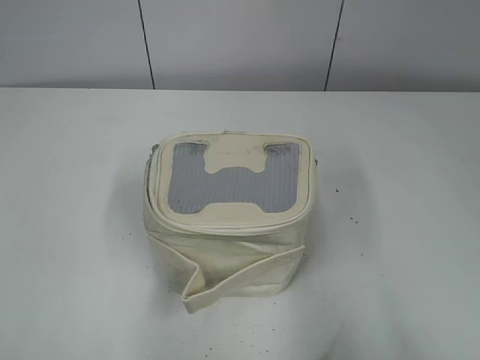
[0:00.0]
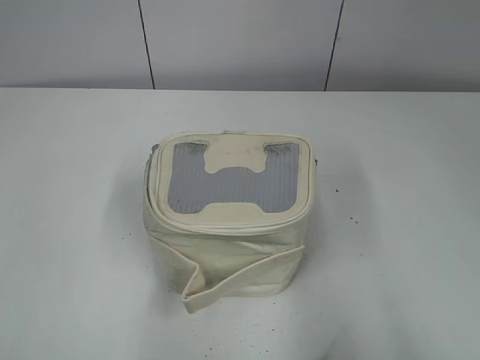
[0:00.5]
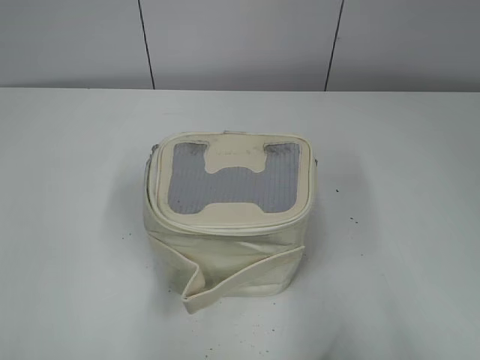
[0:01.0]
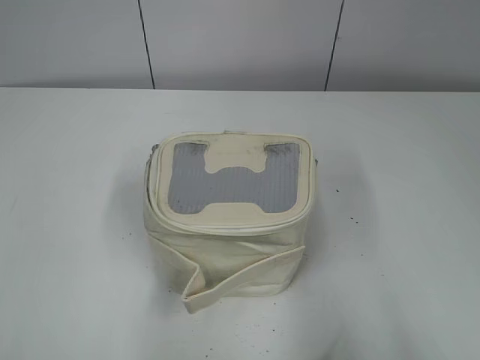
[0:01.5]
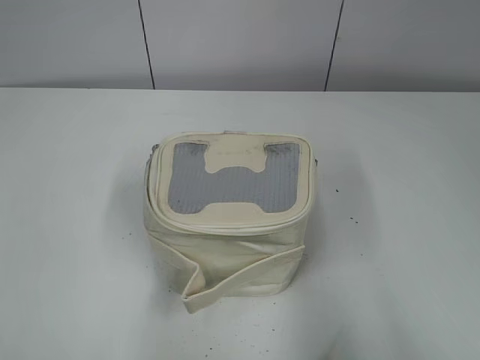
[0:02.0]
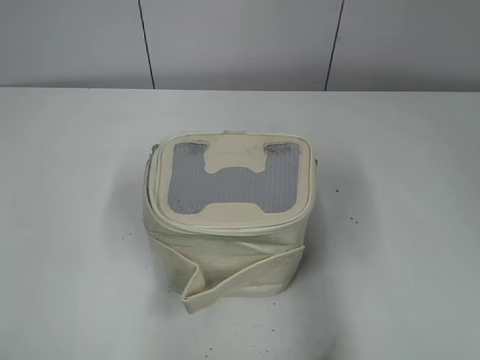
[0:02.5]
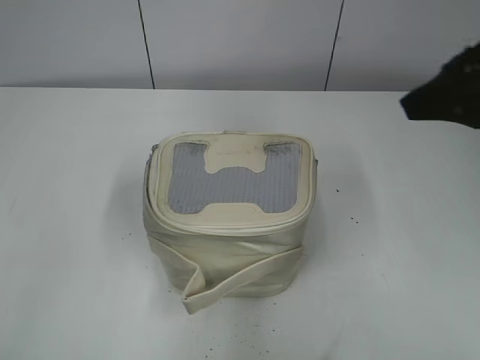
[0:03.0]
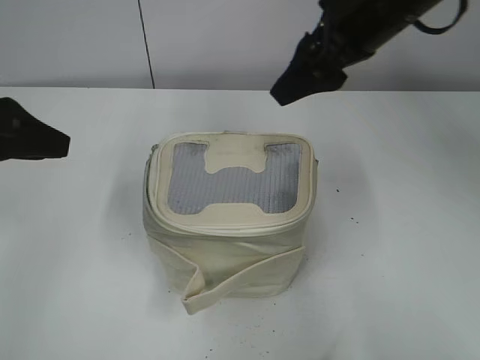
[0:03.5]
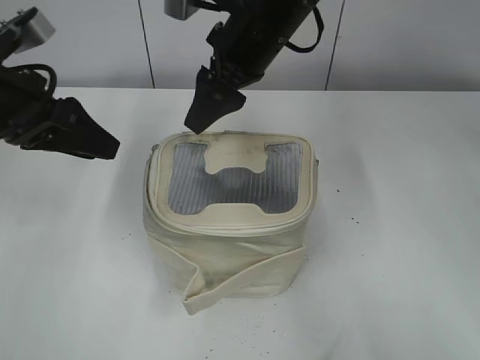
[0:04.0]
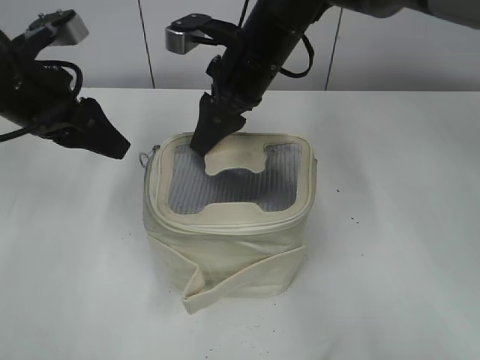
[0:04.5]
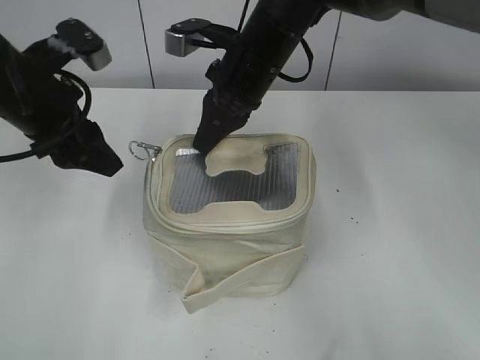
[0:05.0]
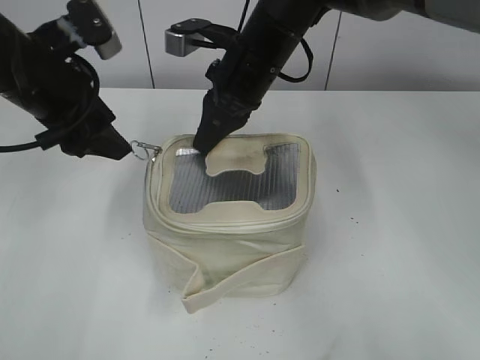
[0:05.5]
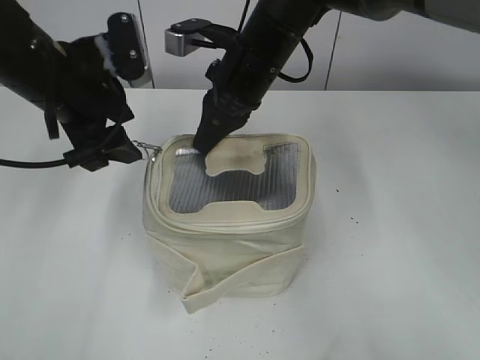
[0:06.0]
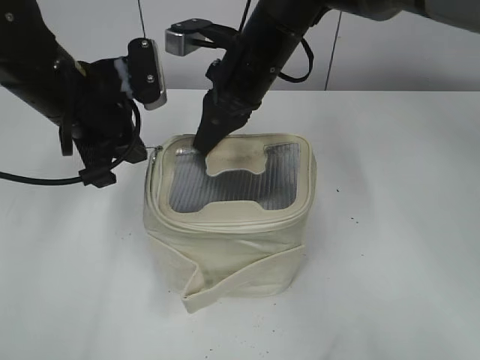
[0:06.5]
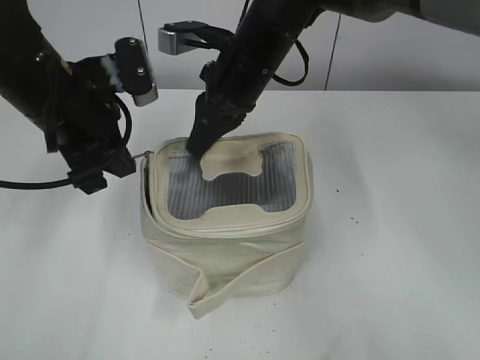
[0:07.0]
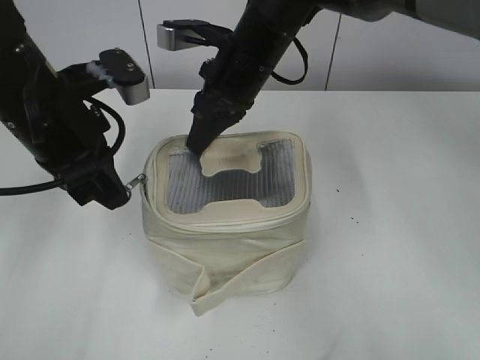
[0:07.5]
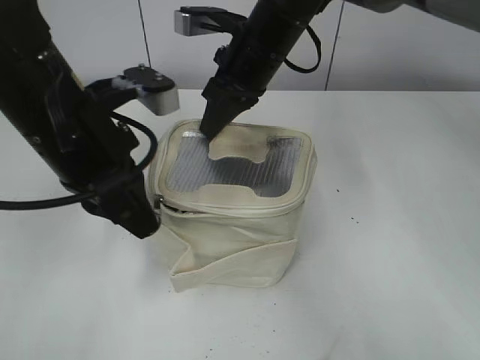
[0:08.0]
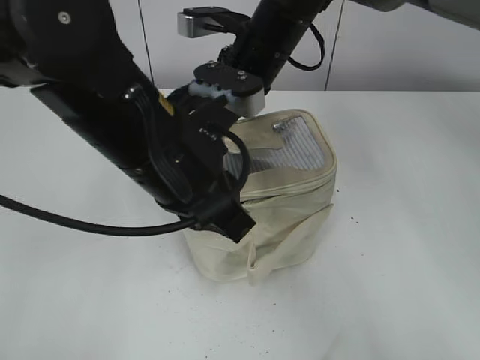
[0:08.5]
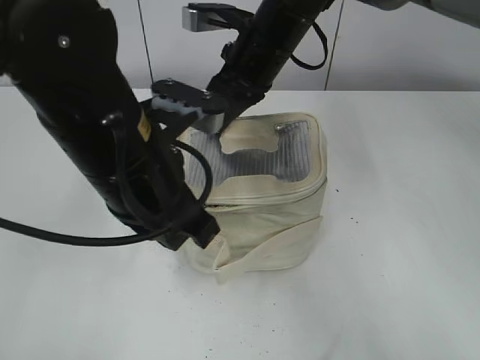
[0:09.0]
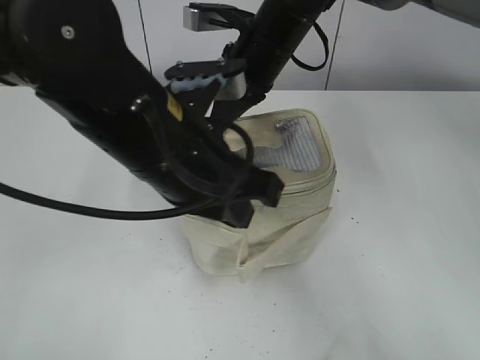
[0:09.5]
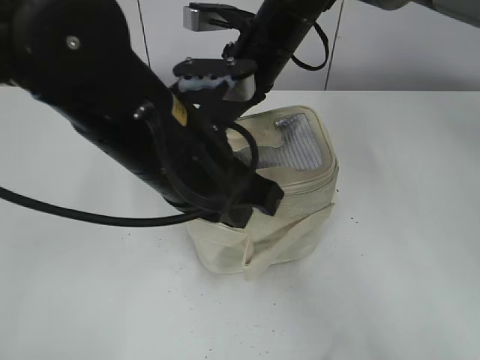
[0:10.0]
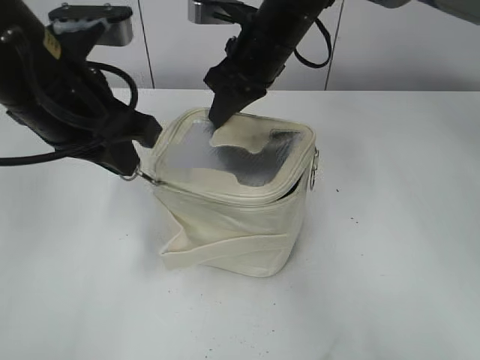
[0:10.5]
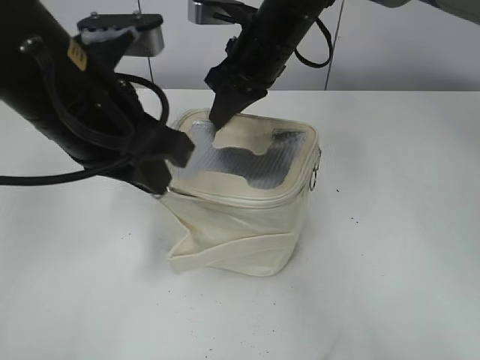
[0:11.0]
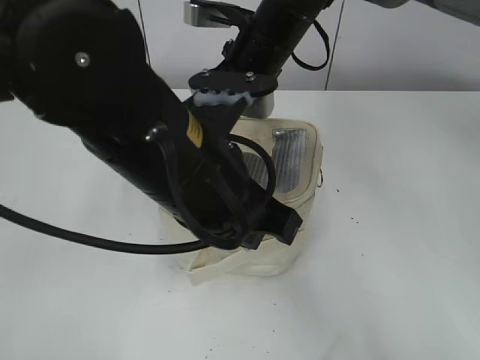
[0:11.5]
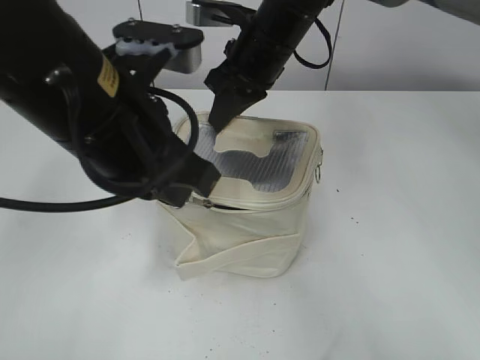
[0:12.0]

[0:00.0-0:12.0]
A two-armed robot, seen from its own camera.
0:02.0 to 0:04.0: The left gripper heads forward, covering some 30 cm. Meanwhile the right gripper shifts roughly 50 cm forward and to the left.
0:04.0 to 0:06.0: The right gripper closes its fingers; the left gripper heads to the right, covering about 5 cm.
0:06.0 to 0:08.0: The left gripper travels backward by roughly 5 cm, and closes.
0:08.0 to 0:10.0: The left gripper is displaced to the right by about 10 cm.
0:10.0 to 0:12.0: The left gripper moves left and right over some 10 cm, changing direction 2 times.

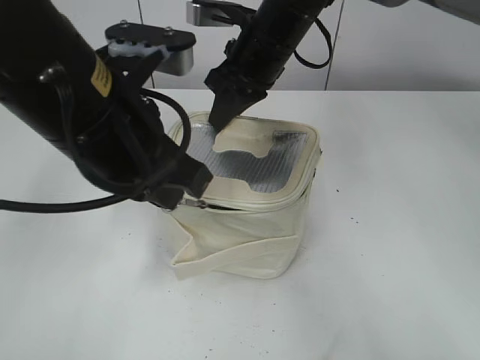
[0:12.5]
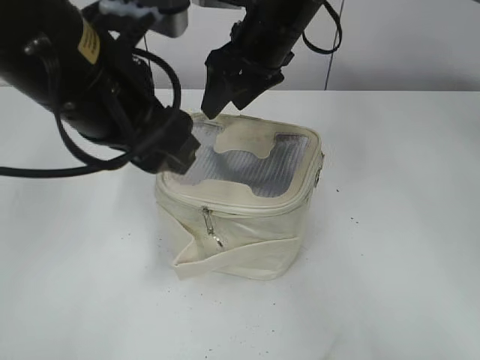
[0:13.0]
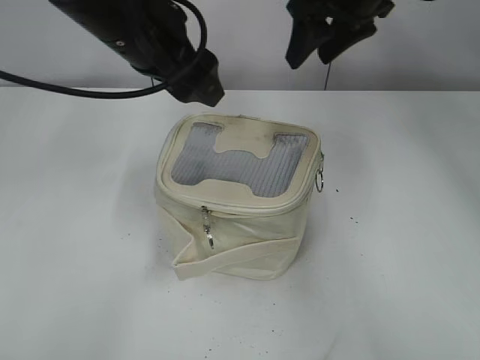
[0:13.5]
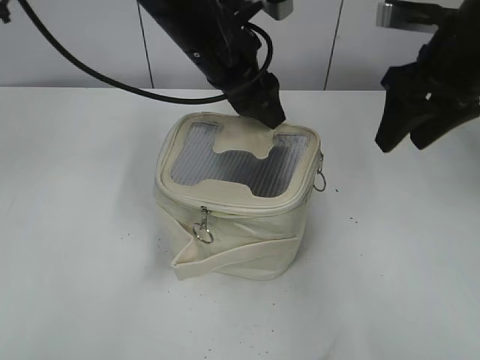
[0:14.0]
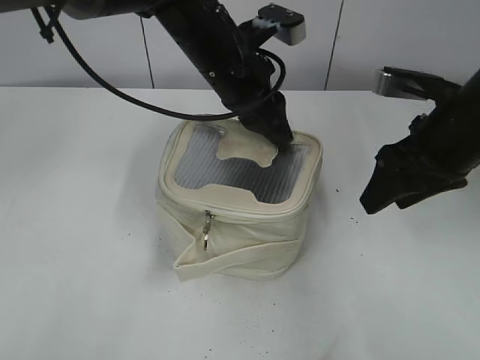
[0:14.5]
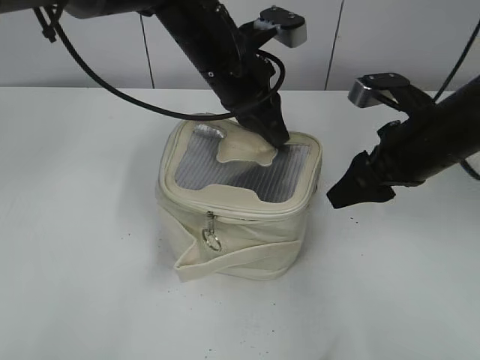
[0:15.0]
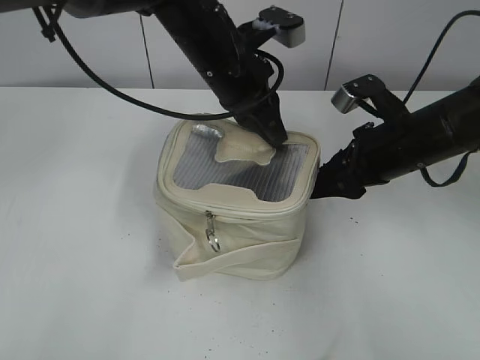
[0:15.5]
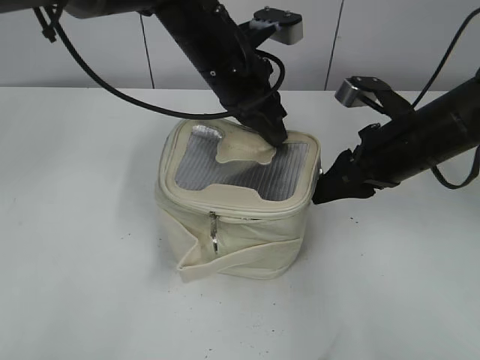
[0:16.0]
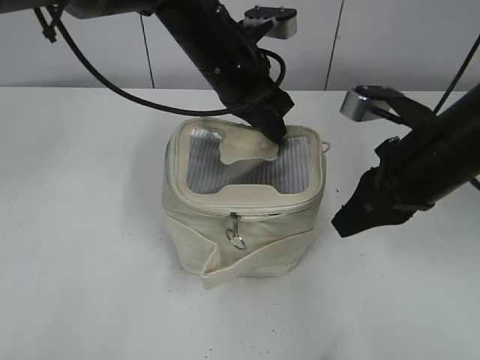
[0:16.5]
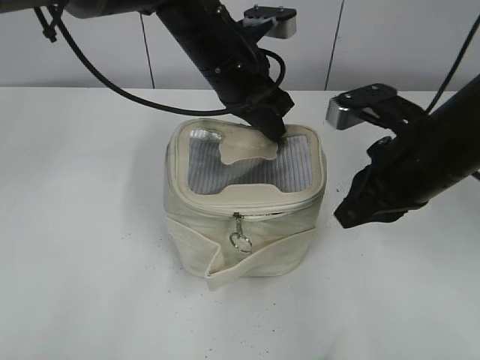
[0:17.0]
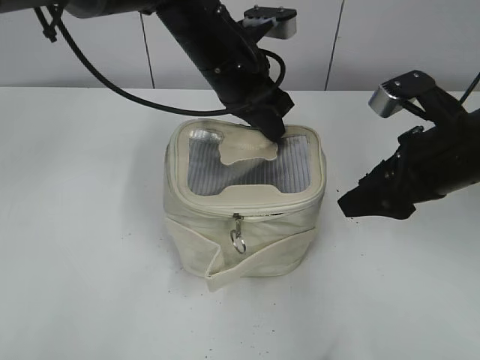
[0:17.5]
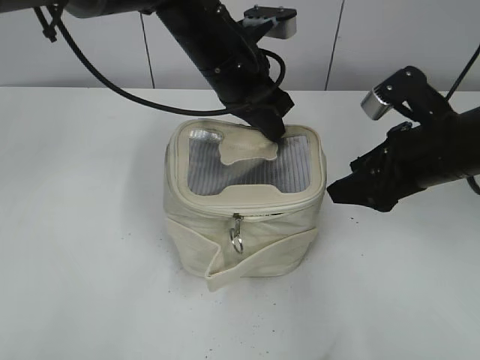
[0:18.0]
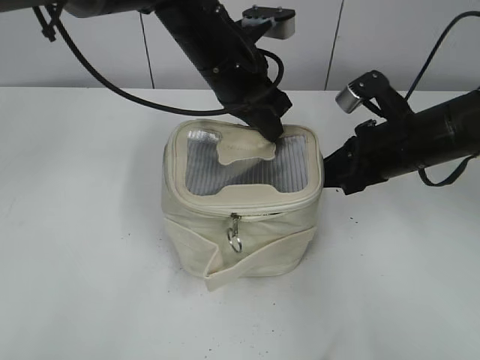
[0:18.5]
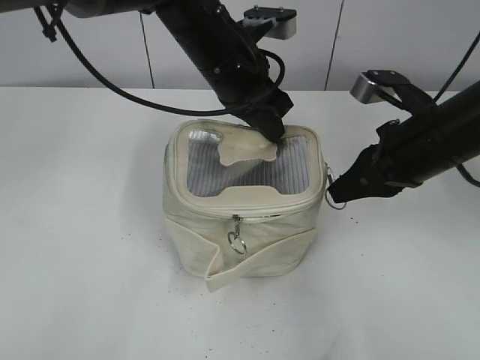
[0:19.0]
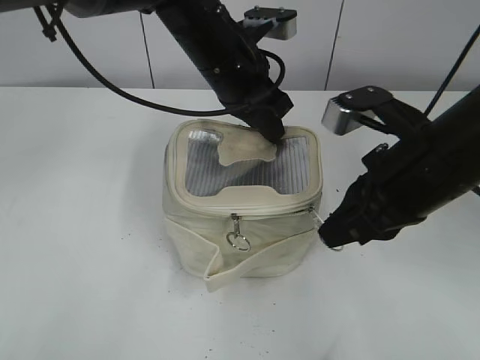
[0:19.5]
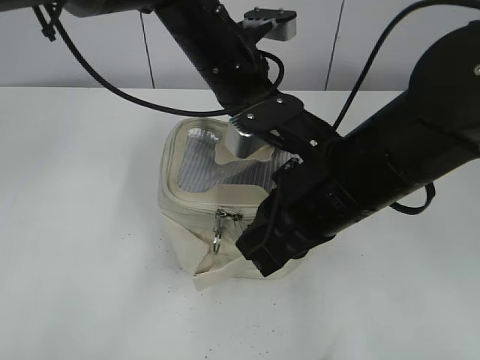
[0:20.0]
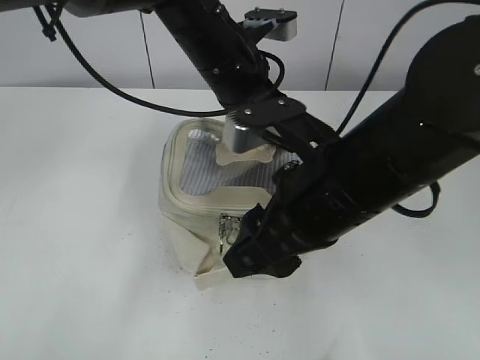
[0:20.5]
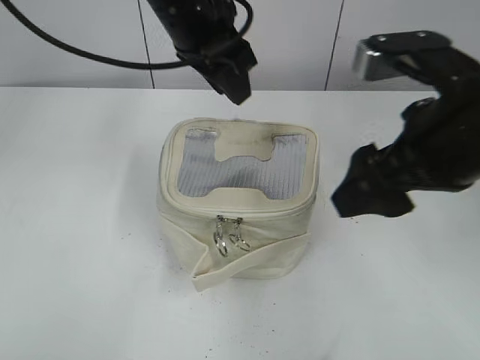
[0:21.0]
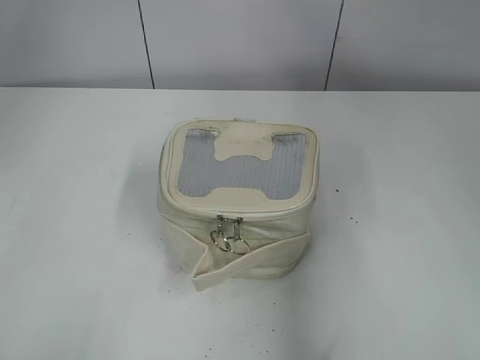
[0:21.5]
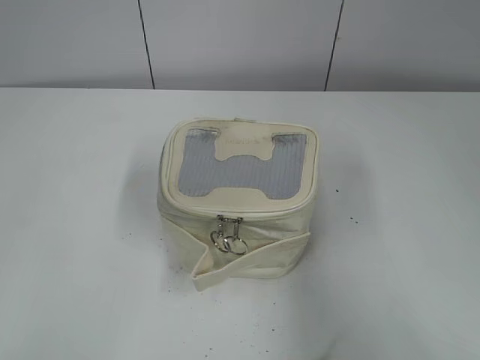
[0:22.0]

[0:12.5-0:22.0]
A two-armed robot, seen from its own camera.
Step, 0:13.5 to 0:20.0: Zip up the bag with your right hand.
0:12.5 to 0:14.5: The left gripper heads forward and to the right, covering about 20 cm, and opens its fingers; the right gripper travels to the right and backward by approximately 20 cm, and opens.
0:14.5 to 0:16.5: The right gripper closes up; the left gripper closes.
0:16.5 to 0:18.0: The right gripper opens its fingers.
0:18.0 to 0:20.0: The right gripper travels to the left and backward by about 15 cm, and closes its fingers.
0:20.0 to 0:22.0: The right gripper heads to the right, backward and upward, covering roughly 30 cm, and opens up; the left gripper is displaced to the left, backward and upward by approximately 35 cm, and opens its fingers.

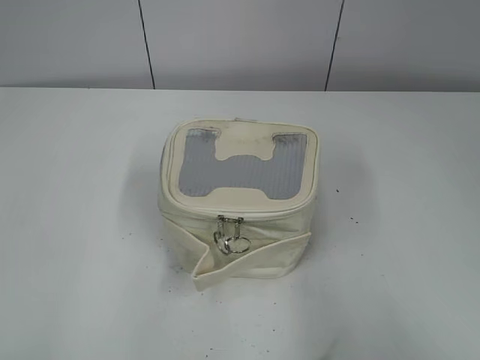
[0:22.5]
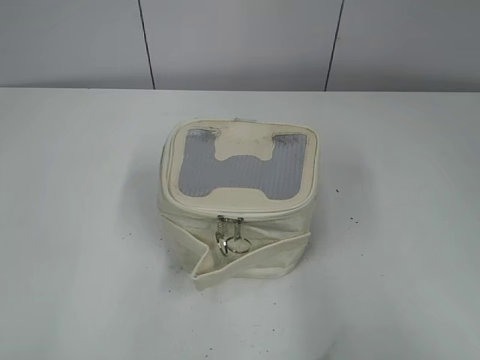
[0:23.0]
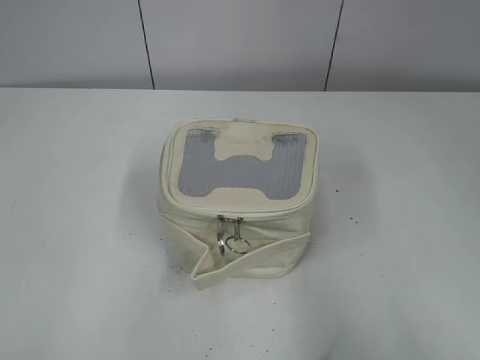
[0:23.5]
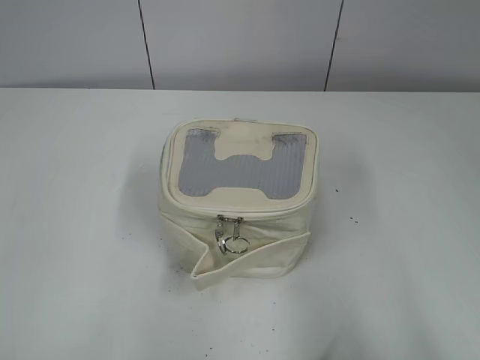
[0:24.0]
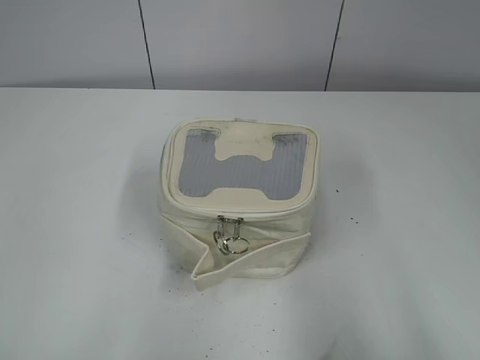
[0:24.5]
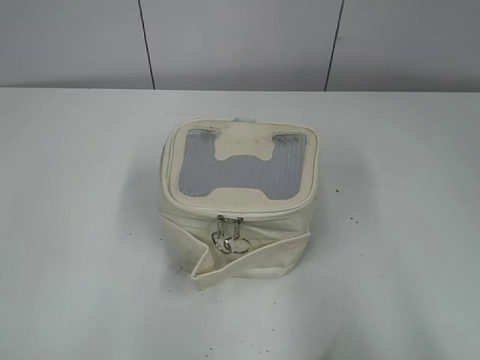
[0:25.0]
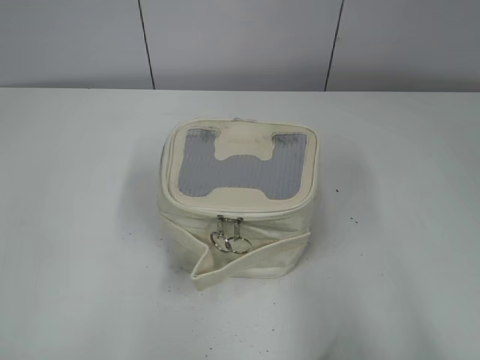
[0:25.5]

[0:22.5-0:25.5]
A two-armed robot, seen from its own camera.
0:24.0 to 0:25.5: Both grippers stay put.

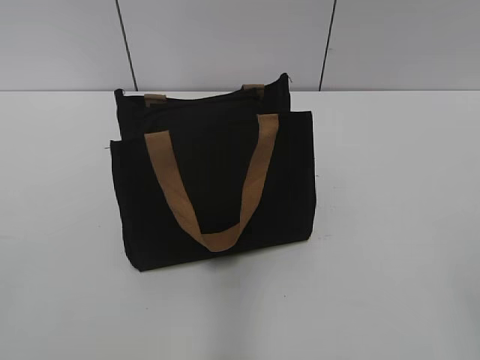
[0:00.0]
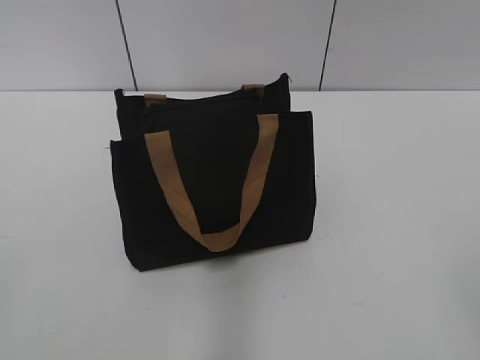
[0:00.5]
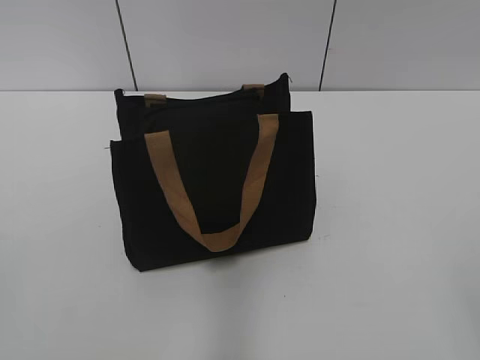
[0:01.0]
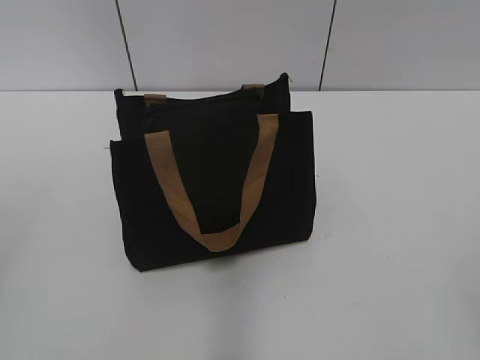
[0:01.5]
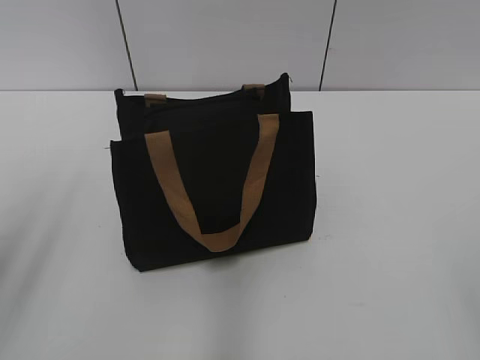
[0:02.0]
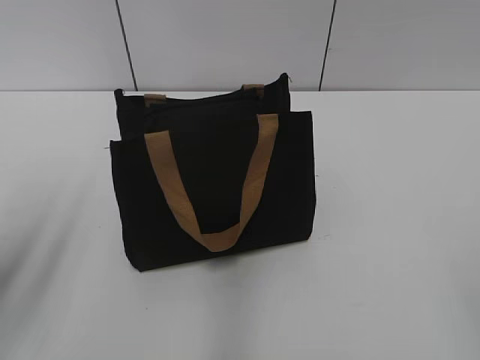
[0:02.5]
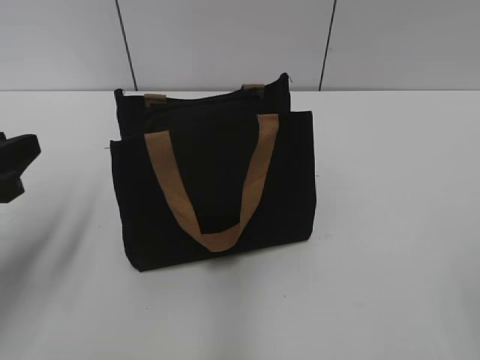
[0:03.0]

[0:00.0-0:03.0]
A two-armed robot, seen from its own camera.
0:01.5 to 0:03.0: The left gripper is displaced downward and forward by approximately 20 cm.
